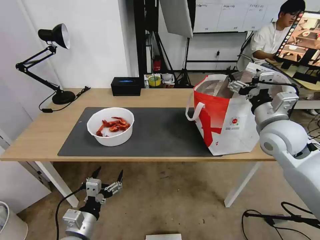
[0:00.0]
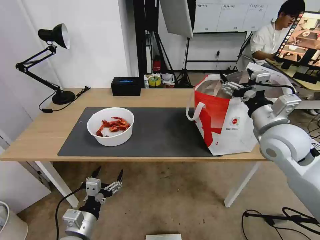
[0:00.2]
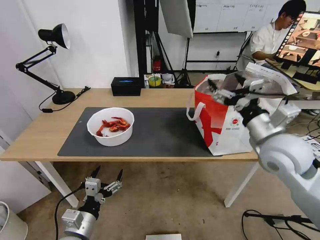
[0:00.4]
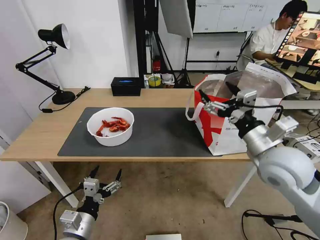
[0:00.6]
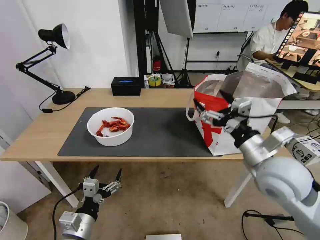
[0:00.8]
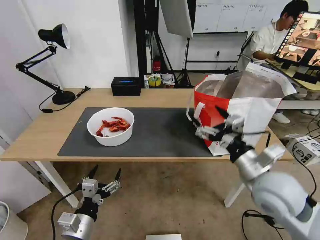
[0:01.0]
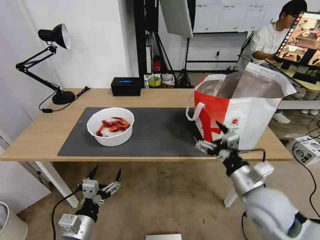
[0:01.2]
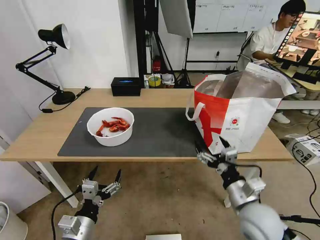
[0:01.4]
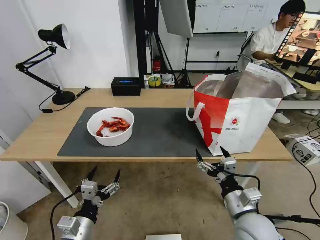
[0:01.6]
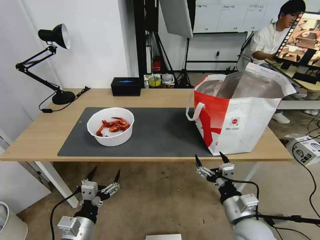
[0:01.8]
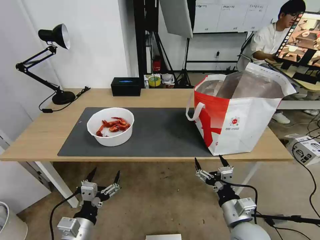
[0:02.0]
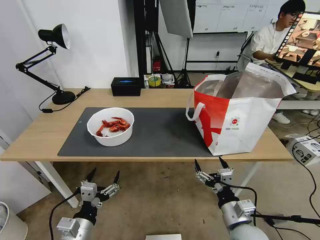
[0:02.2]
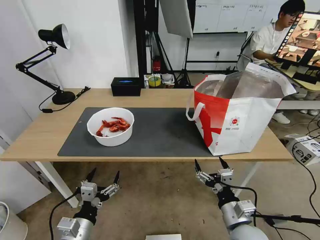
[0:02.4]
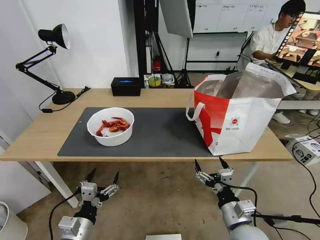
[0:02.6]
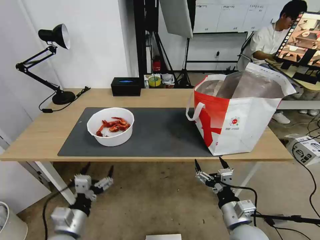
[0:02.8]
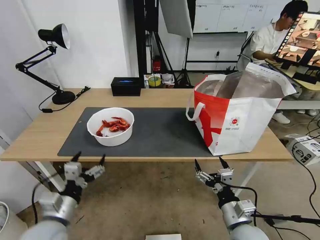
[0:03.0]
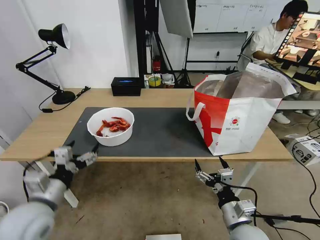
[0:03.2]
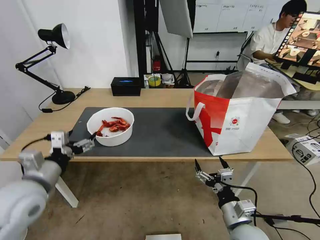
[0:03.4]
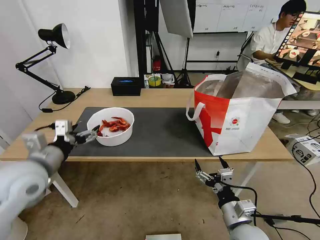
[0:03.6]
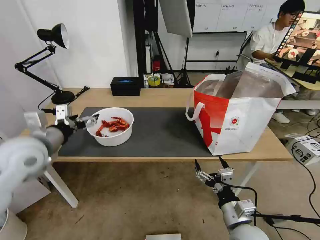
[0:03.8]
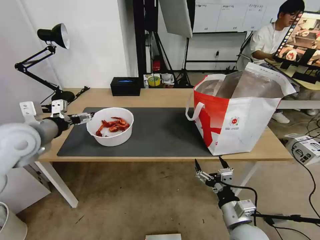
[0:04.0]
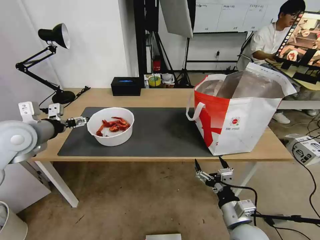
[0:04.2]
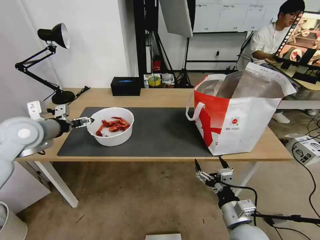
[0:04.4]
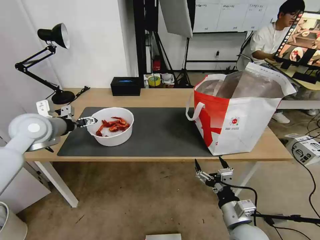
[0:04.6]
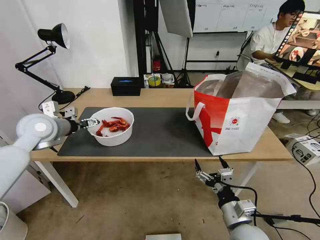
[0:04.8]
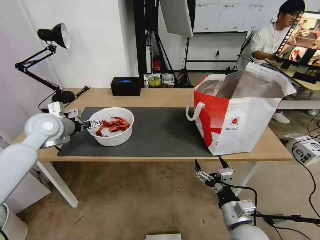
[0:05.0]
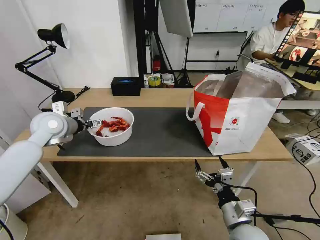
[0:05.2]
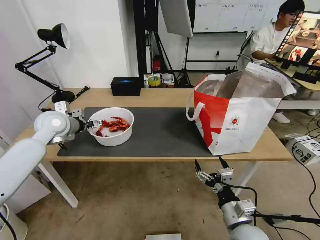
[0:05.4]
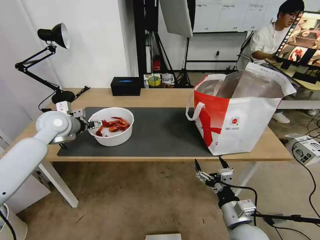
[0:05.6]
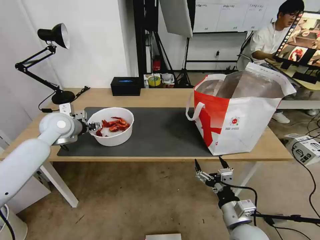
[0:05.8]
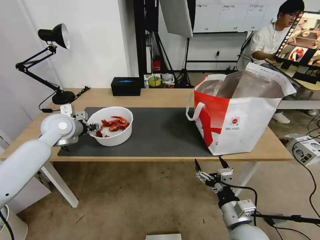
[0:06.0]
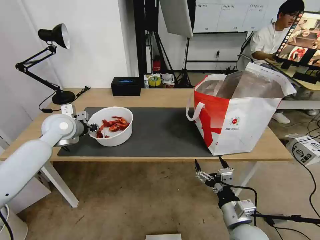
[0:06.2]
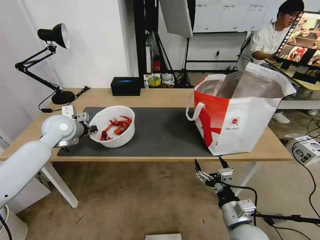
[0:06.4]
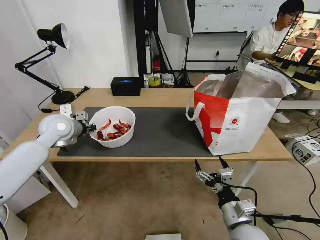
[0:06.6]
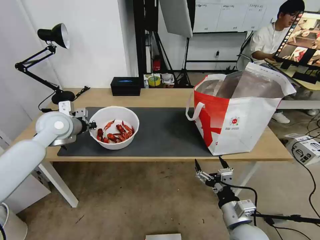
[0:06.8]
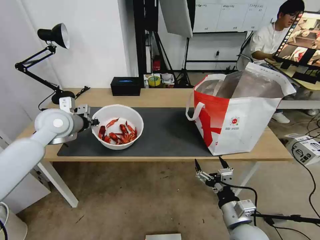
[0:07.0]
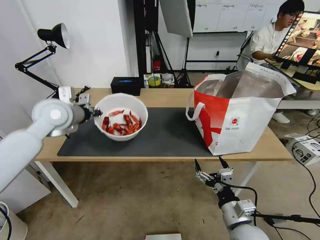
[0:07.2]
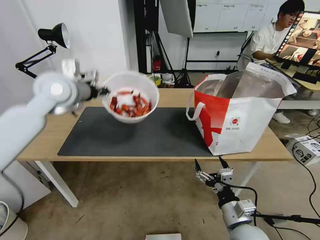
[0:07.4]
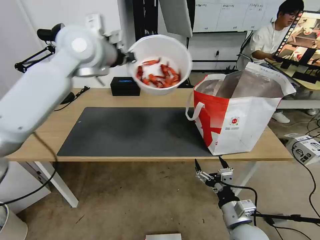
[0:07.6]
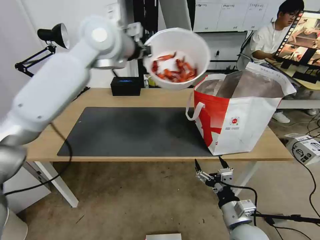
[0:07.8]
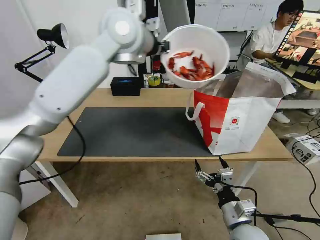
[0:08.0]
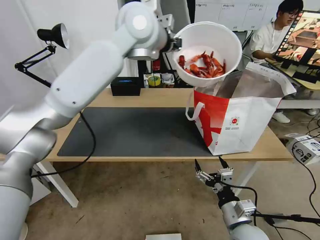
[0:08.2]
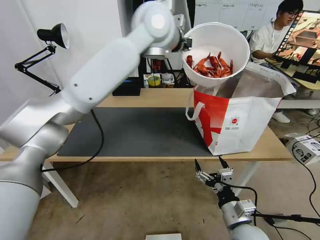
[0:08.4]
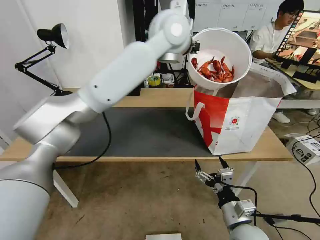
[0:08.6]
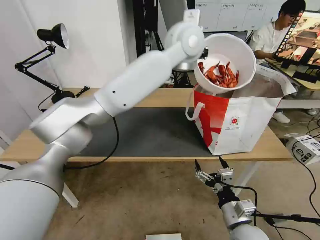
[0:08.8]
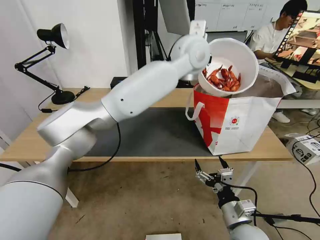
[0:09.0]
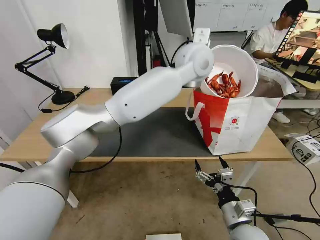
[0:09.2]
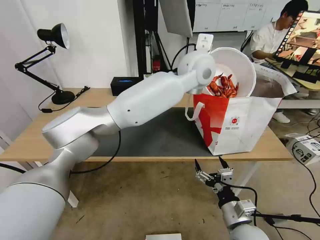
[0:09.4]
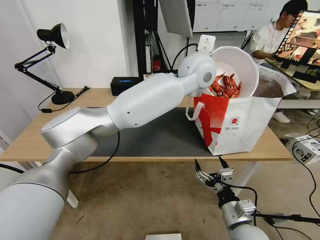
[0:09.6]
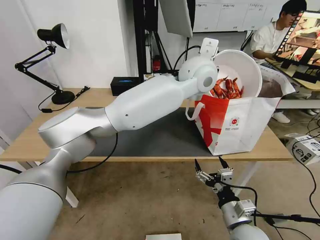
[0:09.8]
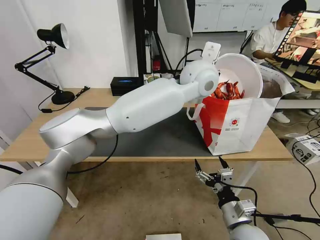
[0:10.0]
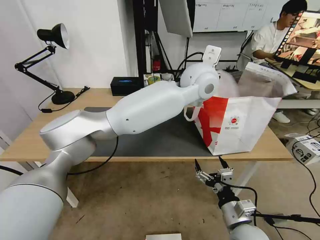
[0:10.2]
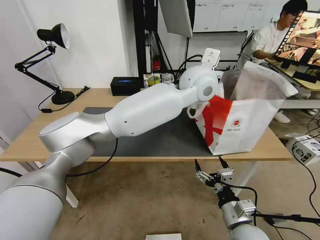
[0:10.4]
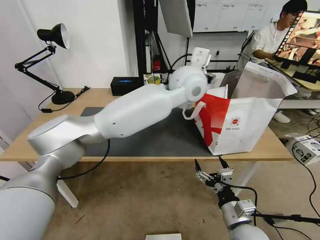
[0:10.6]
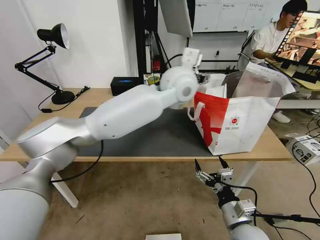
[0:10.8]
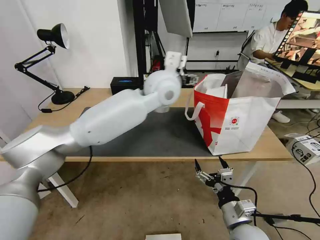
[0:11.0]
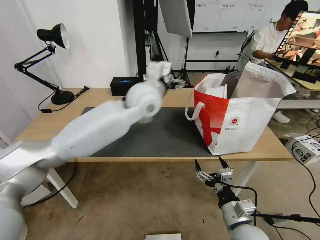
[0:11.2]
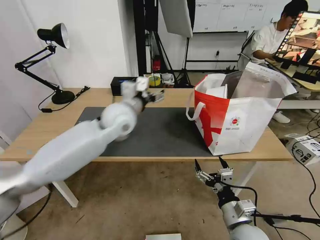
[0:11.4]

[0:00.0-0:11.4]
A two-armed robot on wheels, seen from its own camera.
Task of the whole recording: Pick up the trash from the table and place it into the takeout bag.
0:00.0 to 0:01.4: The right gripper heads backward, downward and to the left, covering approximately 25 cm.
0:01.4 to 0:02.8: The right gripper heads downward, covering about 5 cm.
0:02.8 to 0:04.2: The left gripper travels upward, forward and to the left by about 30 cm.
0:04.2 to 0:05.6: The left gripper shifts approximately 10 cm forward.
0:05.6 to 0:07.2: The left gripper goes some 5 cm upward, and closes up.
0:07.2 to 0:08.6: The left gripper moves to the right and upward, some 35 cm.
0:08.6 to 0:10.0: The left gripper travels downward and to the right by approximately 10 cm.
0:10.0 to 0:11.4: The left gripper travels to the left and downward by approximately 25 cm, and opens.

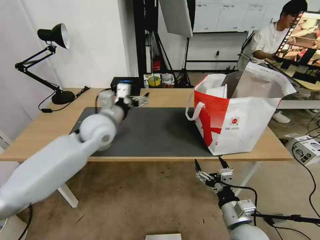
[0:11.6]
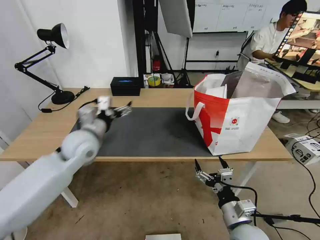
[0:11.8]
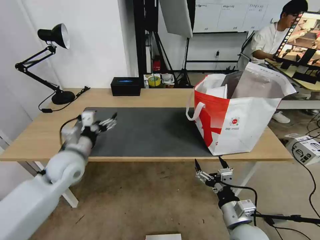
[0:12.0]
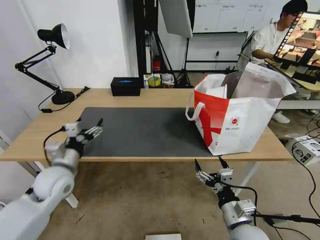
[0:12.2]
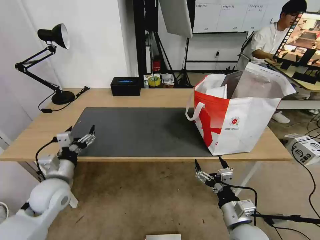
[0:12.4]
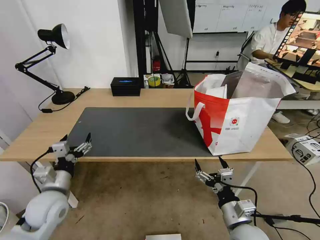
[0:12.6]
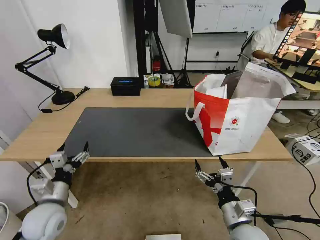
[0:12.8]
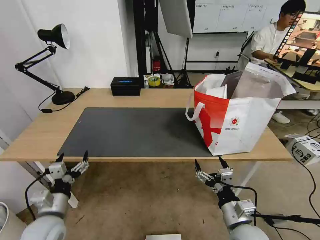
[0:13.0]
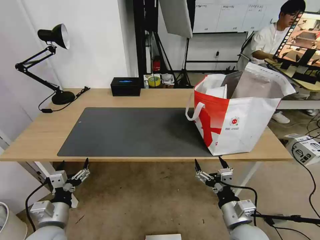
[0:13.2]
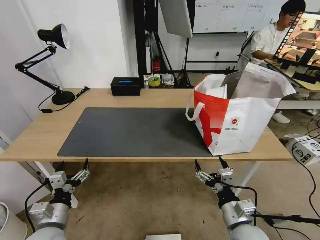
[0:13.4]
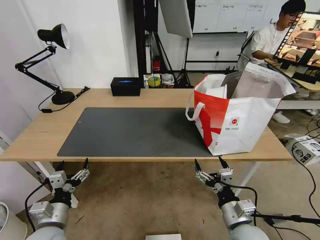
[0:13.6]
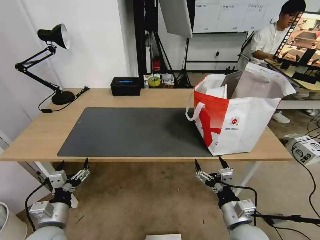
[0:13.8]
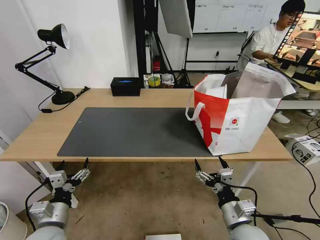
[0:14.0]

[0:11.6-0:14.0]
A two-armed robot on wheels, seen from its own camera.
Task of the whole recording: Pick up the trash from the table and place it into the takeout bag.
0:11.6 to 0:12.8: The left gripper is displaced backward, downward and to the left by roughly 30 cm.
0:12.8 to 0:14.0: The left gripper shifts by about 5 cm.
